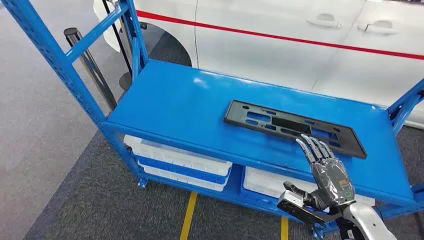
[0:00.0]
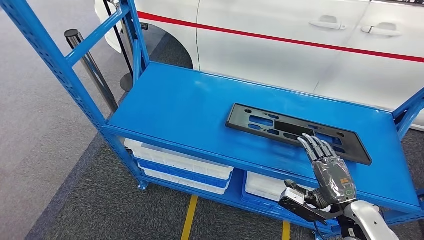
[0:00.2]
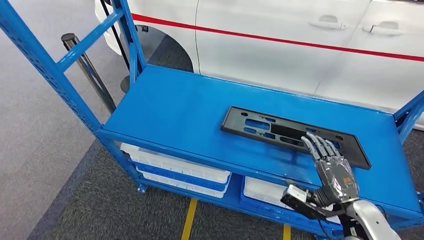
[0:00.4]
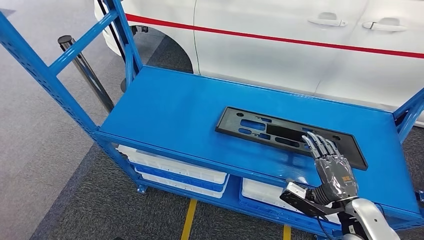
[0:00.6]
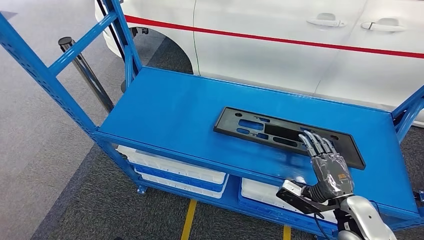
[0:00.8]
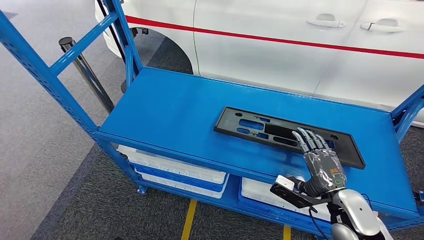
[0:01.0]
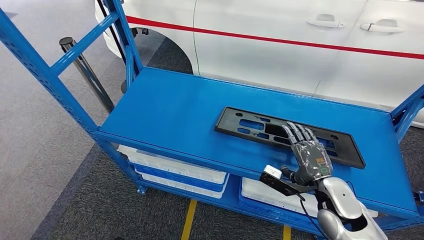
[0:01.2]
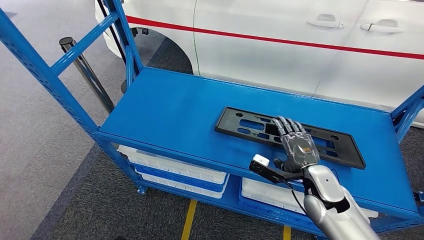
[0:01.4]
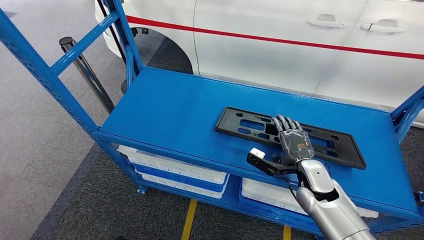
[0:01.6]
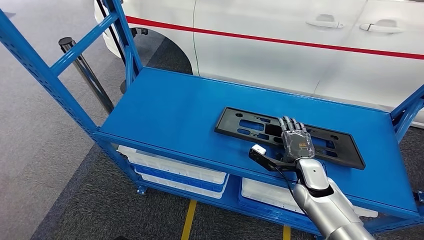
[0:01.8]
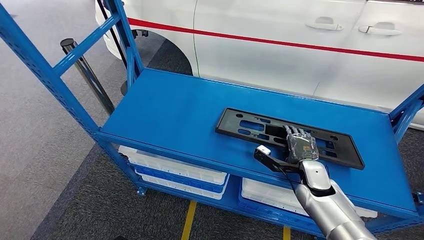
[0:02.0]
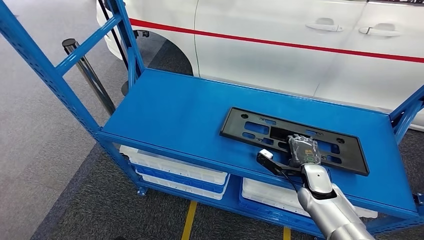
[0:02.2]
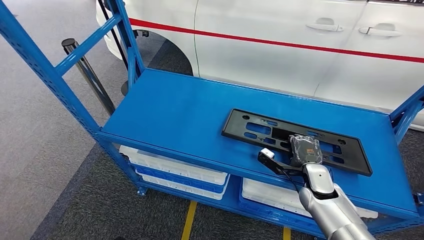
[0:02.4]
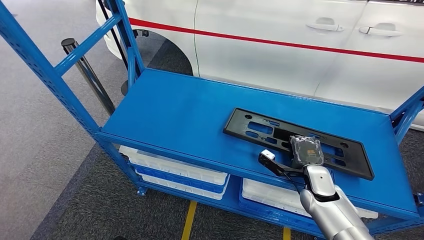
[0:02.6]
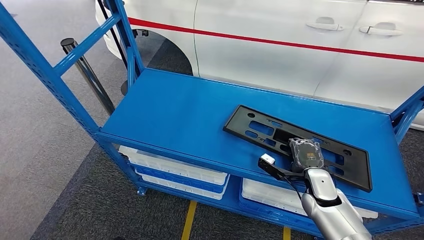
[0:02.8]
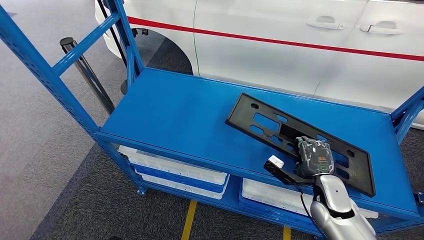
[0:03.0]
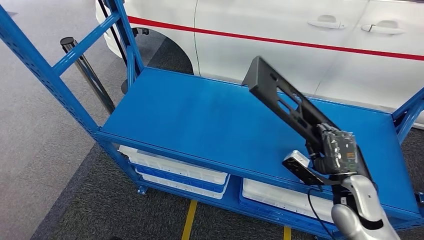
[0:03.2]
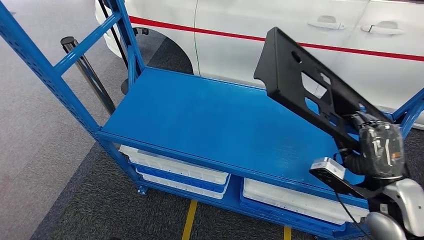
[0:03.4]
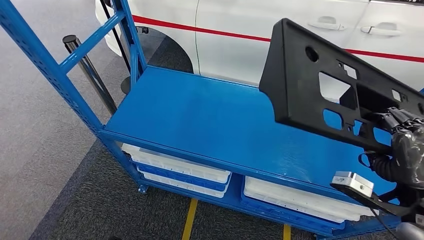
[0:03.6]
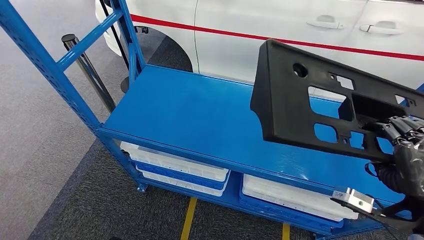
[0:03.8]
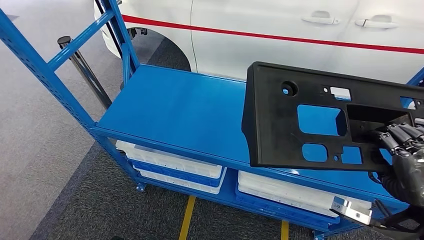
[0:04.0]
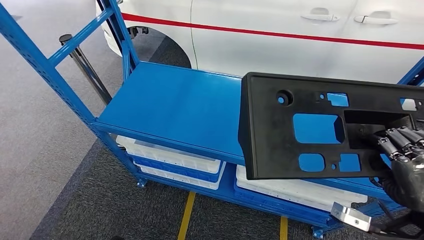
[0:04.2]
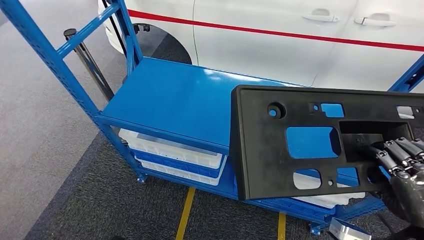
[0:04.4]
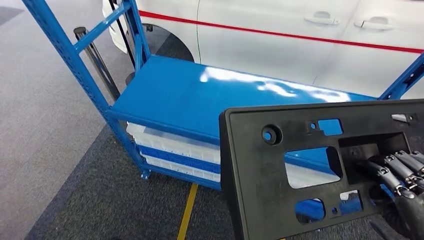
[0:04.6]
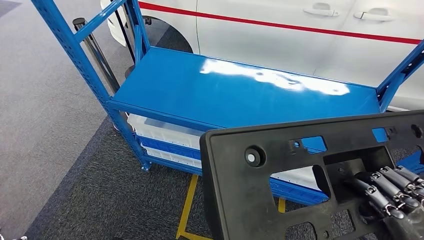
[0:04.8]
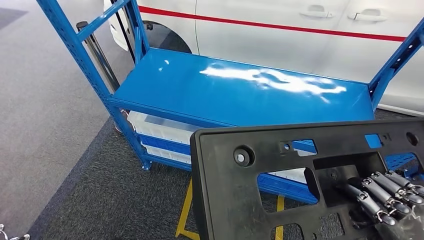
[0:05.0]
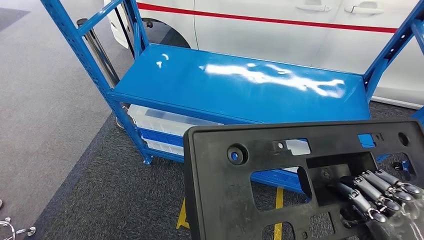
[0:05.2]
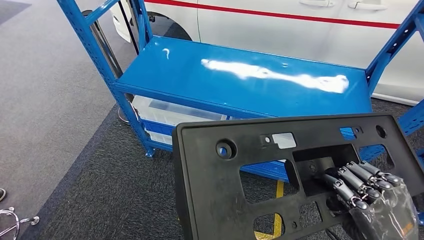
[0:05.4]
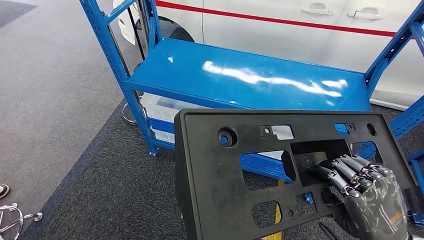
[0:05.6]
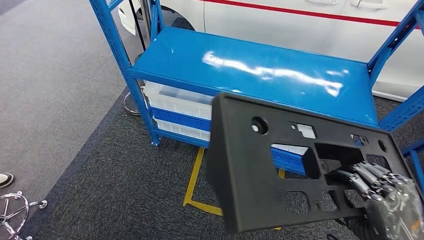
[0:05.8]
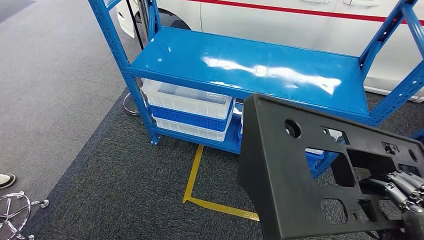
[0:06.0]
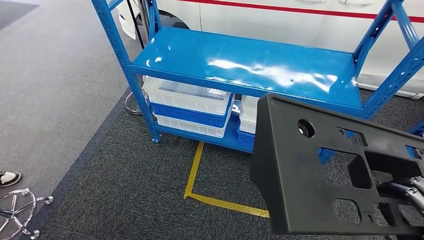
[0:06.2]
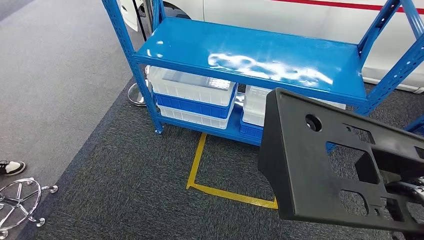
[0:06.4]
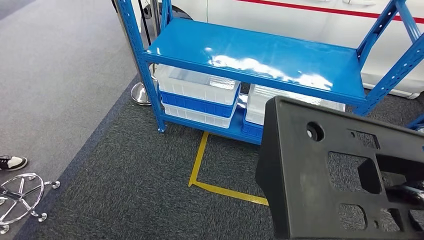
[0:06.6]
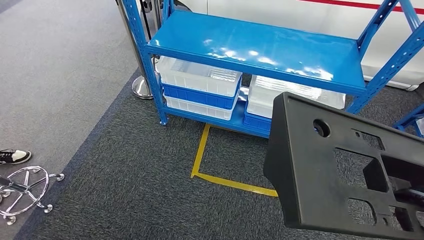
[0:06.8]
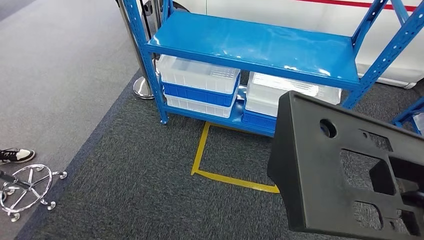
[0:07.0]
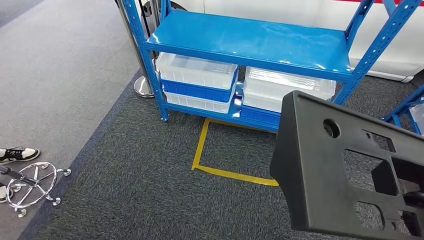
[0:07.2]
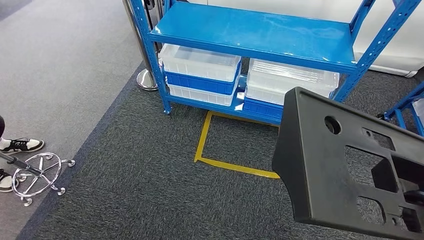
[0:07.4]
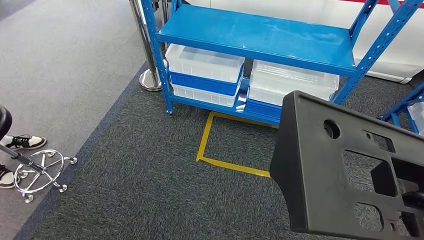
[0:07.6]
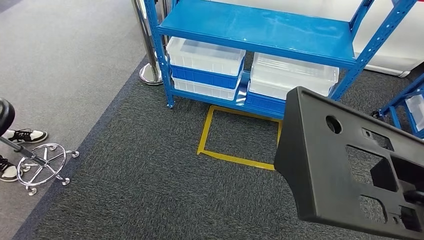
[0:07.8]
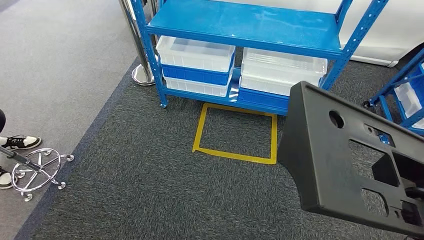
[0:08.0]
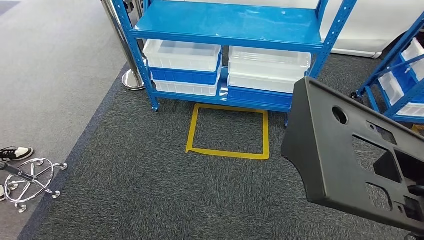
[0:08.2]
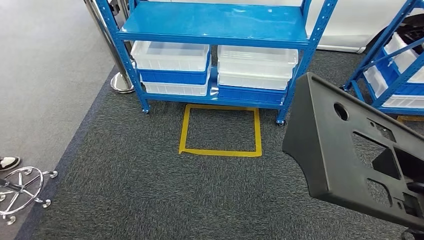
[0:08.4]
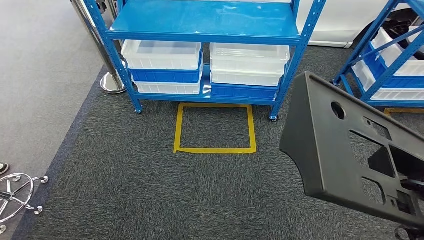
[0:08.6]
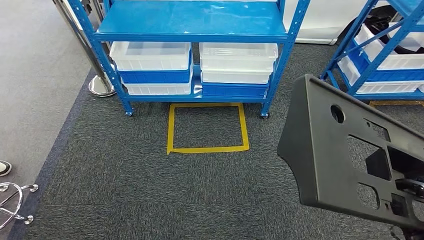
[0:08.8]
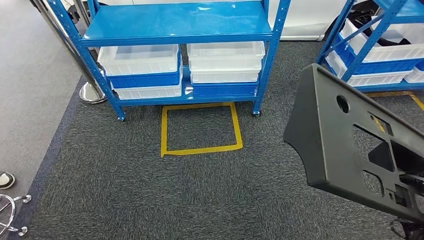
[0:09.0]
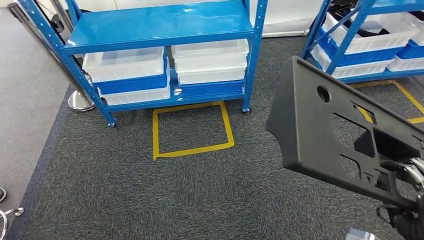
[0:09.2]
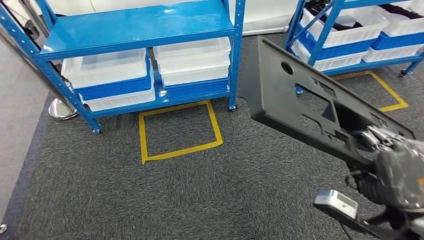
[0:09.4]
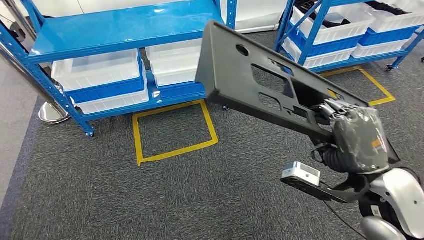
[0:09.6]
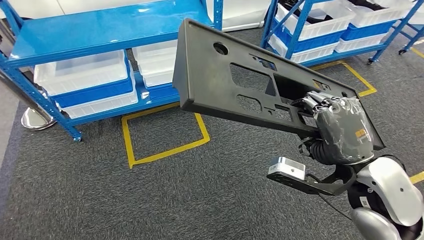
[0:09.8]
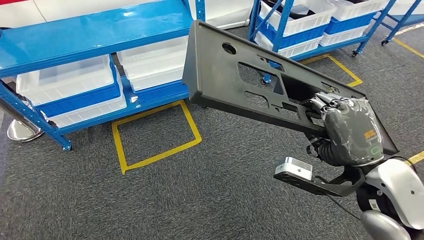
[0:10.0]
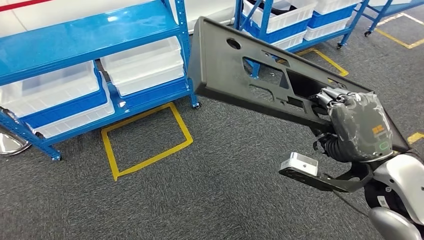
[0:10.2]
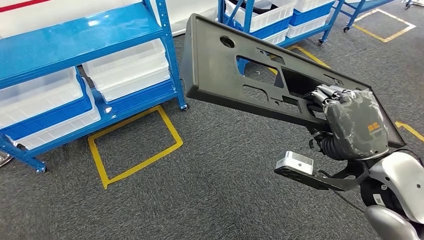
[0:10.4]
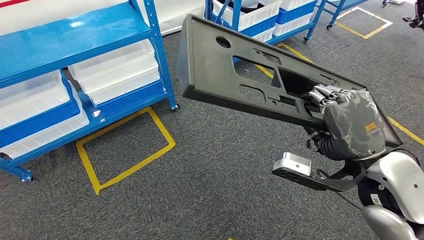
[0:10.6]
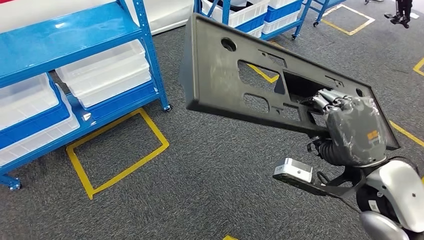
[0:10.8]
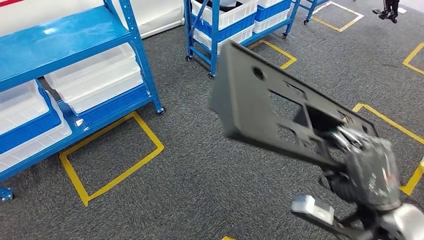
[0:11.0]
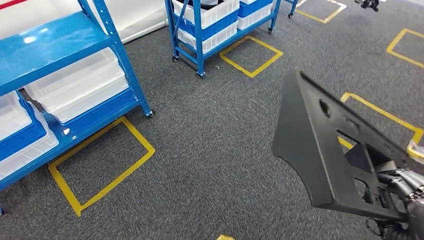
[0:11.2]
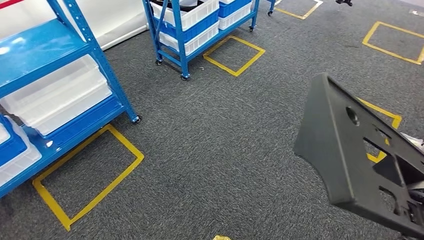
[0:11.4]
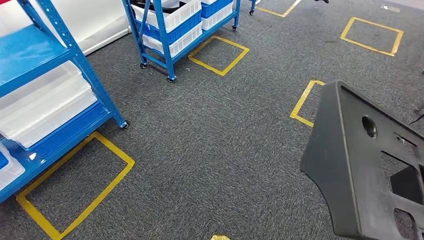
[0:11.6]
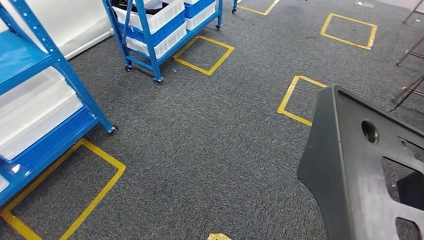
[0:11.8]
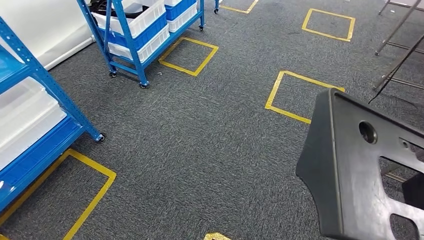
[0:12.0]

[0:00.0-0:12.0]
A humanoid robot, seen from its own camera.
Step, 0:00.0 to 0:05.0: Pick up the large material from the shelf.
0:01.6 to 0:03.0: The right hand ends up roughly 5 cm from where it was.

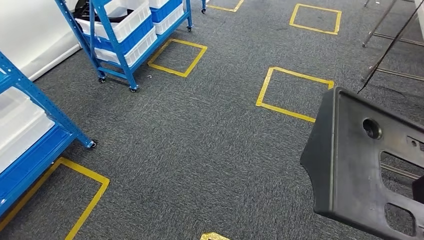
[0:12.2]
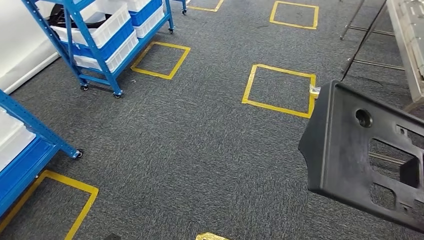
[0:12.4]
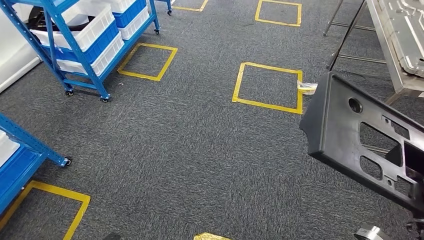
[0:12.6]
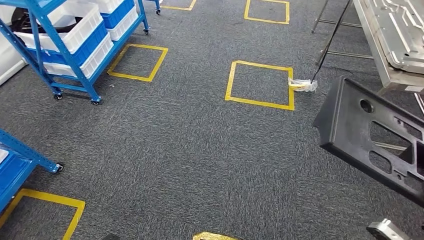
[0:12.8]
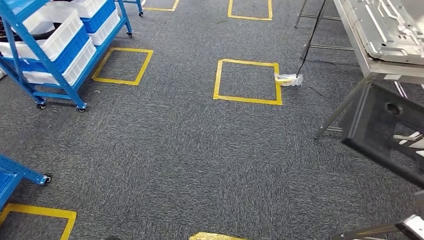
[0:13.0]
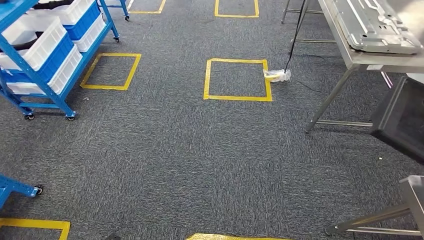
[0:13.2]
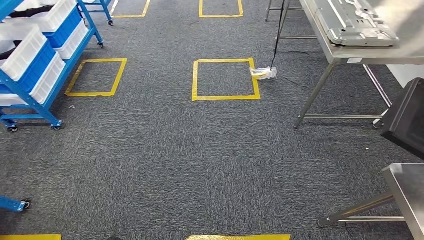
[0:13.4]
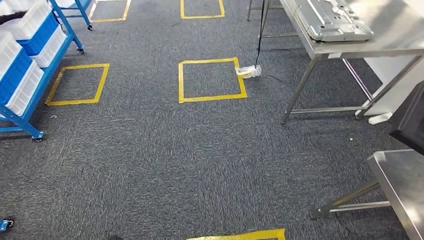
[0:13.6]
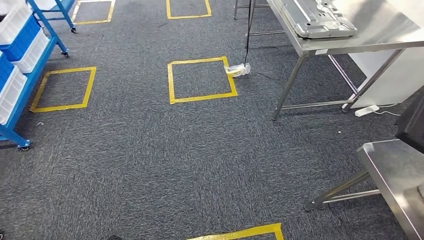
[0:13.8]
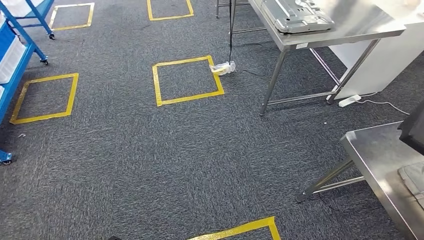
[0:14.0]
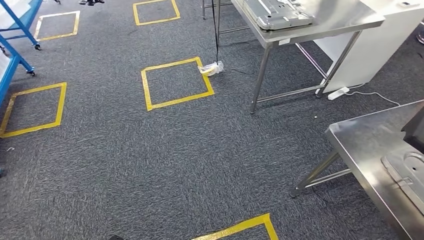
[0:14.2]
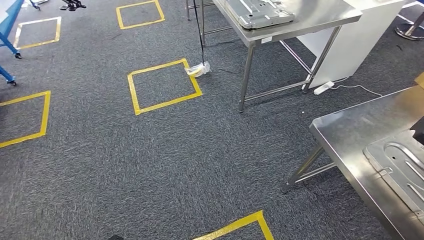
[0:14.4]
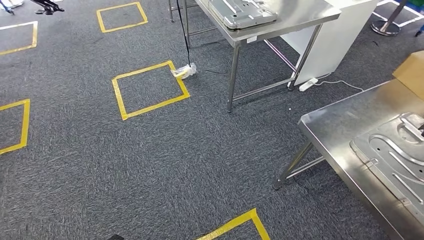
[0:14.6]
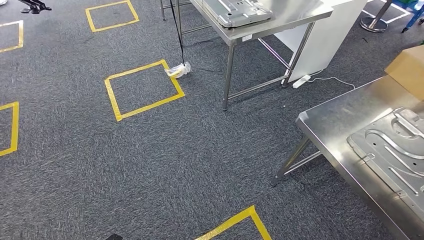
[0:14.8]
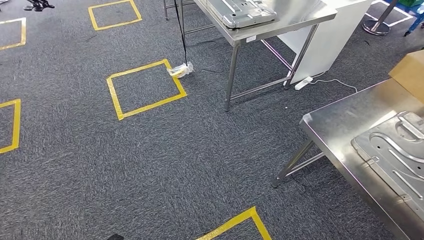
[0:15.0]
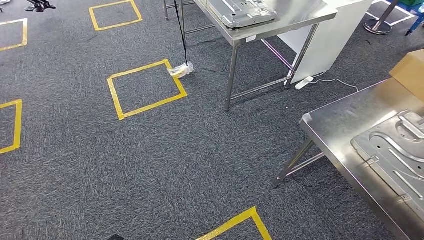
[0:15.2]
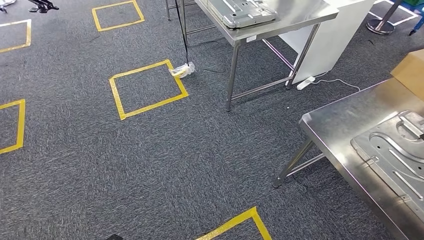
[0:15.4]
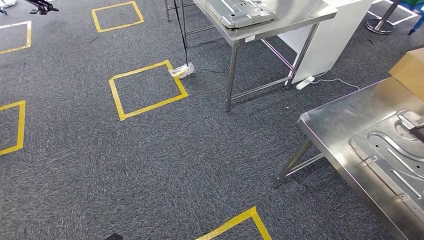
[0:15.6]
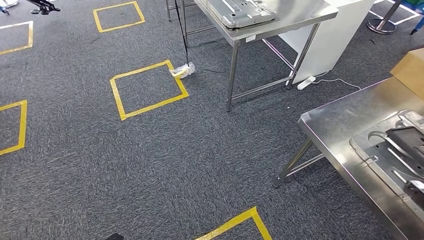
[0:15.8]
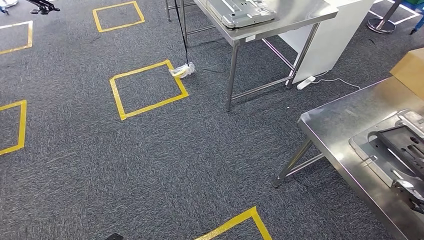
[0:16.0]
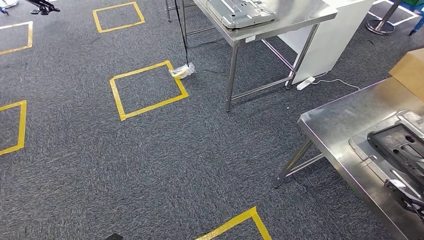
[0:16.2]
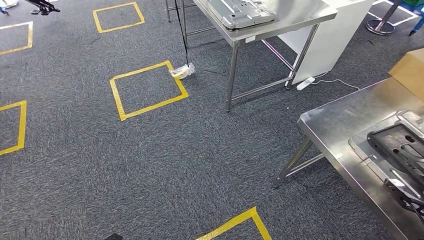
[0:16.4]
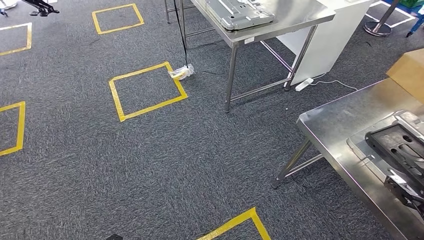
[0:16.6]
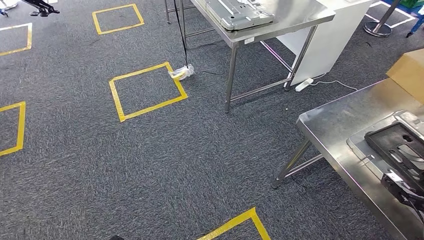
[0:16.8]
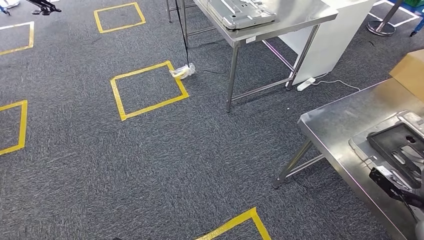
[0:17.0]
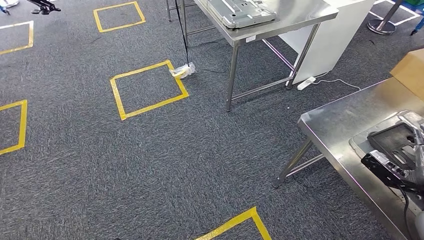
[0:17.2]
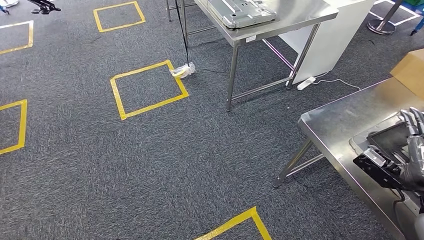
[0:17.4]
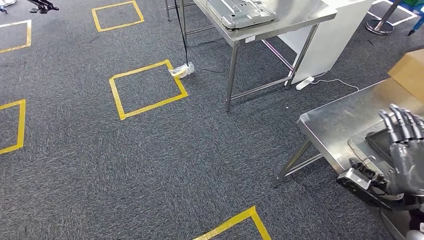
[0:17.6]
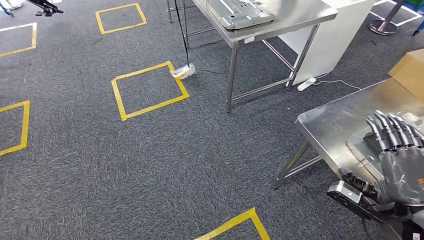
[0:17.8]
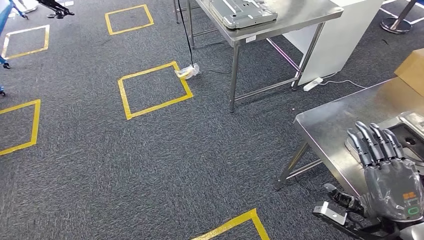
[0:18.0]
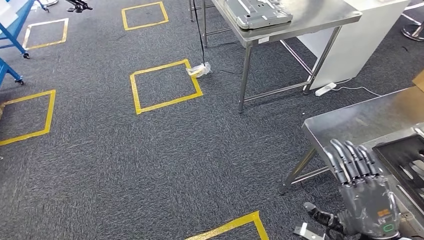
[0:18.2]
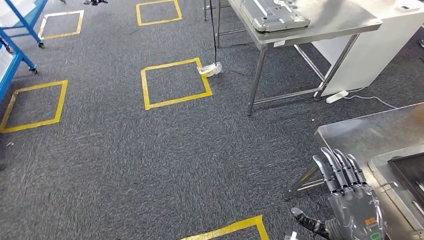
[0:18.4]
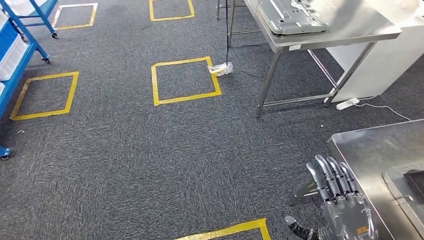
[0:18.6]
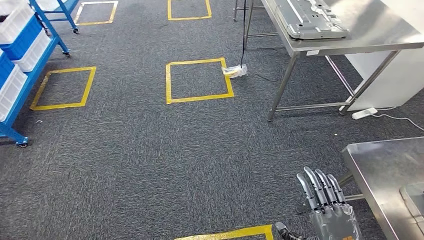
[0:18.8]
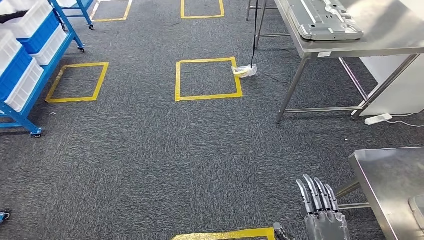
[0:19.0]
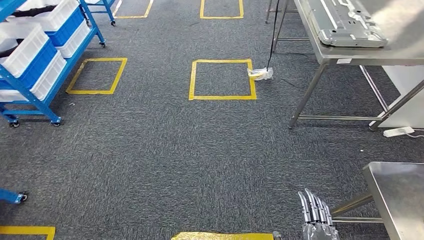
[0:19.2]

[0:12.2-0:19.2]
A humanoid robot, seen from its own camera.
Step, 0:14.0 to 0:18.6: Insert the large material into the corresponding slot on the workbench.
0:15.0 to 0:16.4: The right hand shifts approximately 20 cm downward, forward and to the left.
0:16.4 to 0:17.8: The right hand is displaced to the left and upward by roughly 20 cm.
